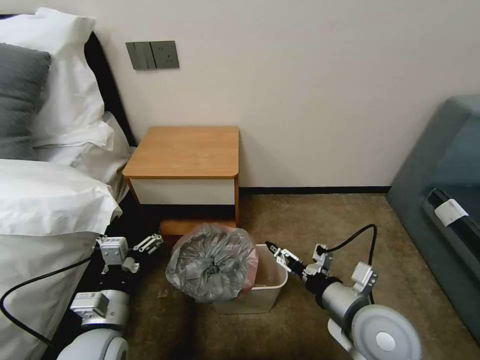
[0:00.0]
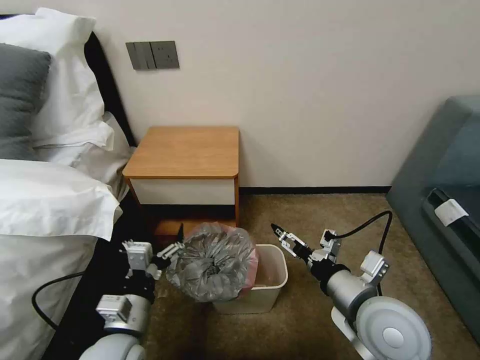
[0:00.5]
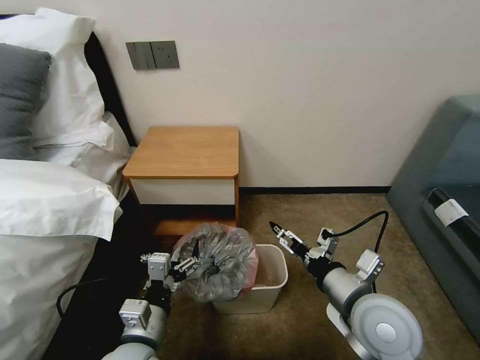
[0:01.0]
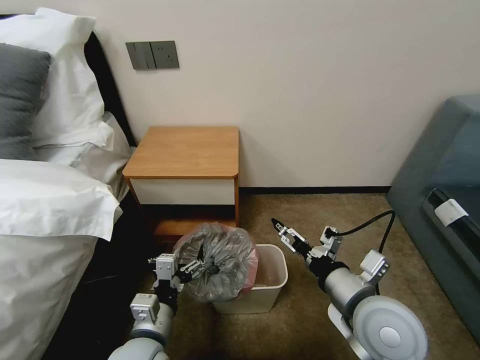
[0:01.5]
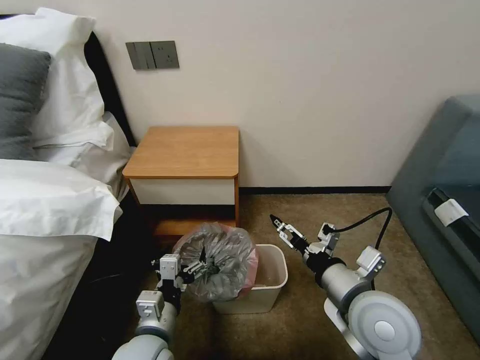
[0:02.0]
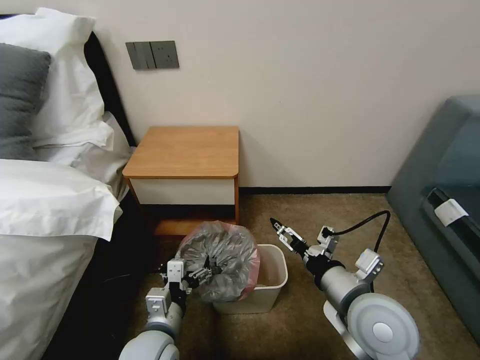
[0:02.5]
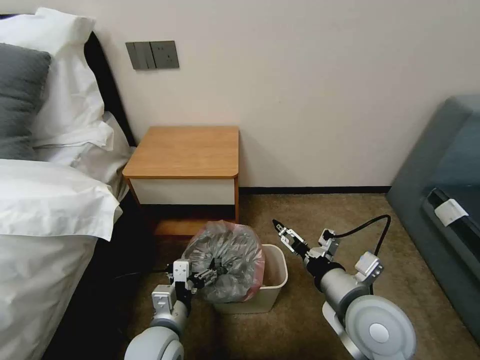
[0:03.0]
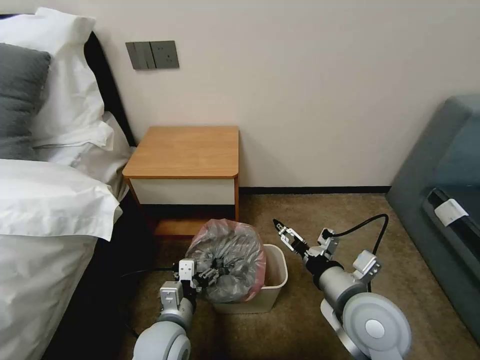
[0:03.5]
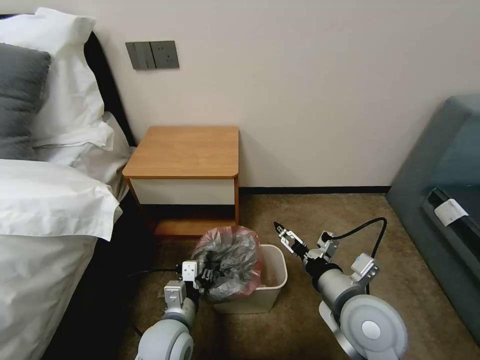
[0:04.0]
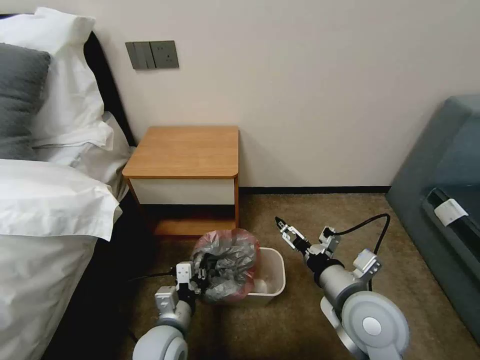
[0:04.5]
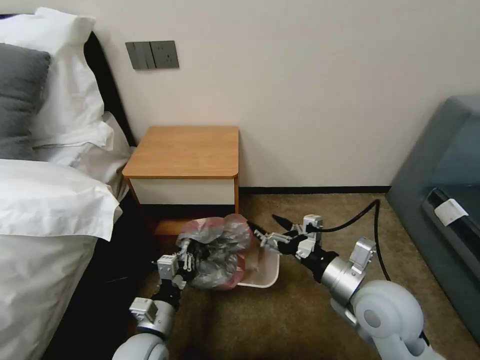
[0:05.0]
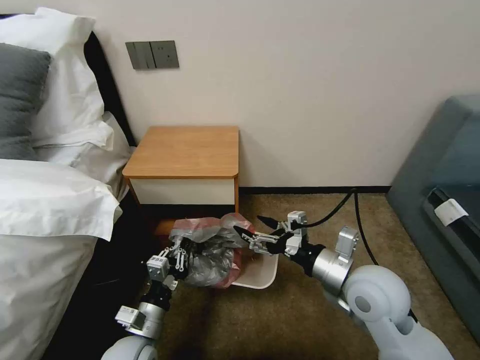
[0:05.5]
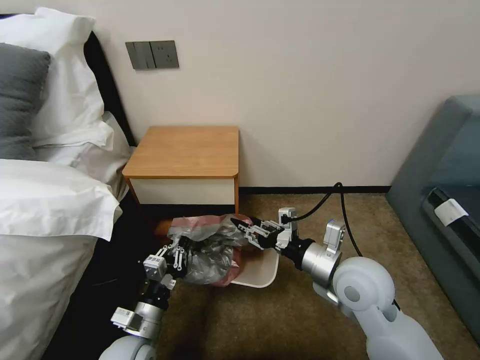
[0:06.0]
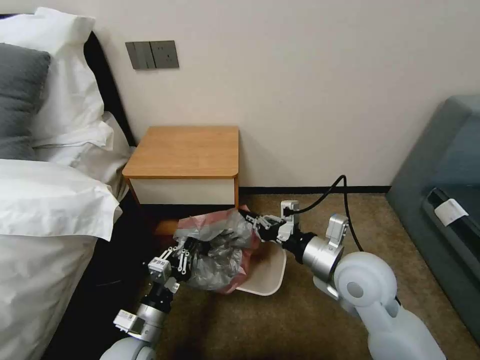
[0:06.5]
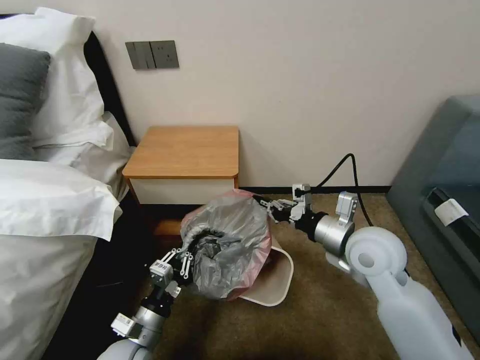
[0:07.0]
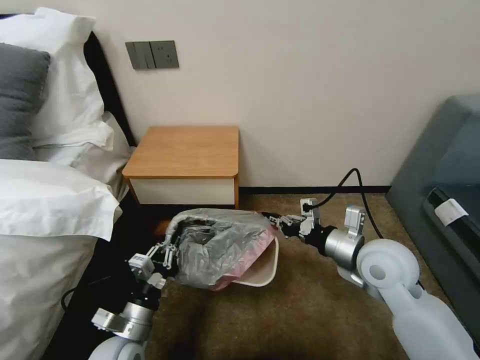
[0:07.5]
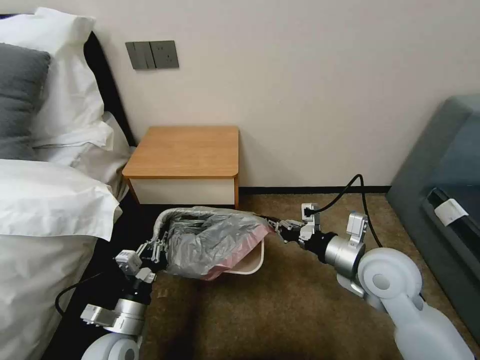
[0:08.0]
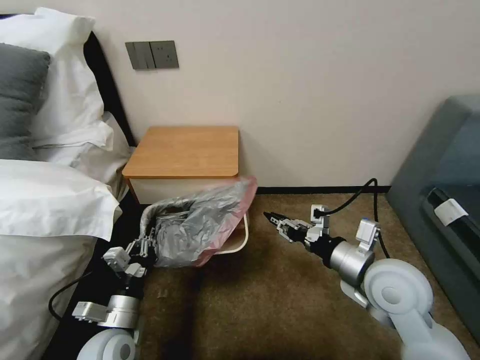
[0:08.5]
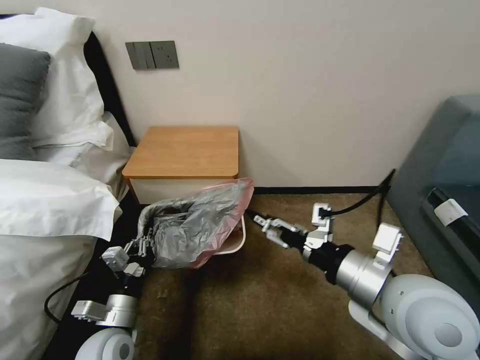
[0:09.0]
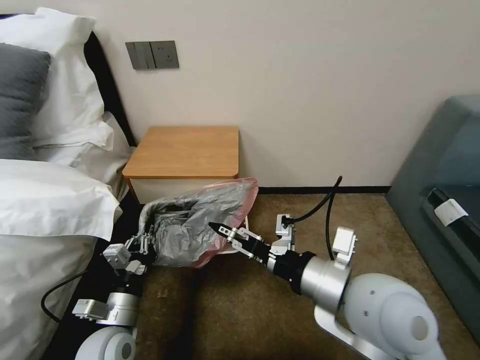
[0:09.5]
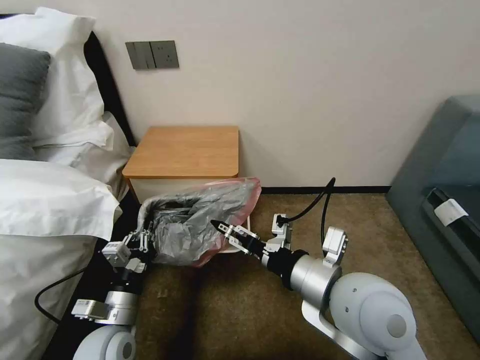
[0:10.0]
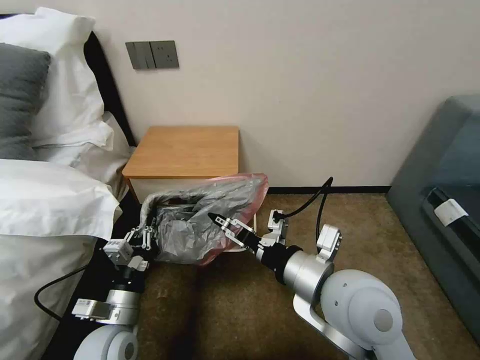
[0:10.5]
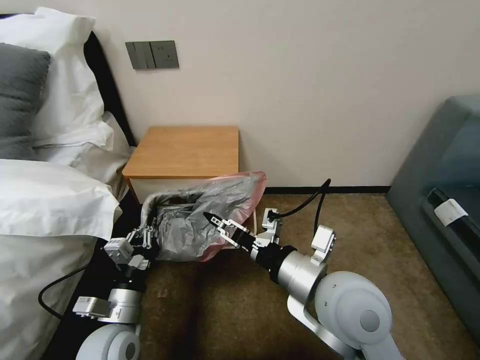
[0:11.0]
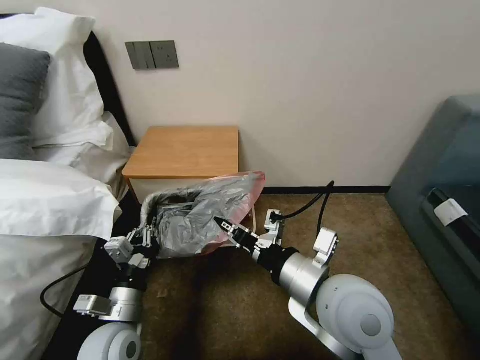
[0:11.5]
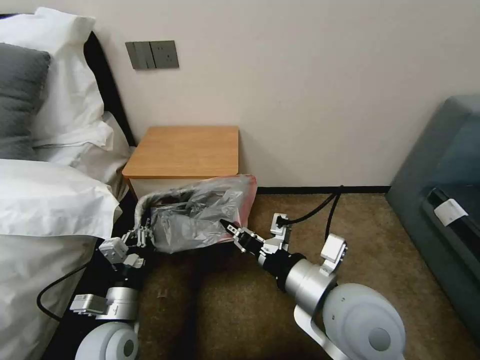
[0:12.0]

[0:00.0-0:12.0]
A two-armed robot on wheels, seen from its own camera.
Task of the whole recording: Pick up the garbage bag from the table and place it over the trash can.
0:00.0 to 0:02.0: The left gripper travels to the right by some 10 cm.
0:02.0 to 0:04.0: The left gripper shifts by roughly 5 cm, and closes its fingers.
0:04.0 to 0:06.0: The left gripper heads to the left, covering roughly 5 cm, while the right gripper moves forward, about 5 cm, and closes.
0:06.0 to 0:08.0: The right gripper moves roughly 5 cm, and closes its fingers.
0:08.0 to 0:10.0: The right gripper is displaced to the left, backward and upward by some 15 cm, and opens its fingers.
0:10.0 to 0:12.0: The right gripper closes its fingers.

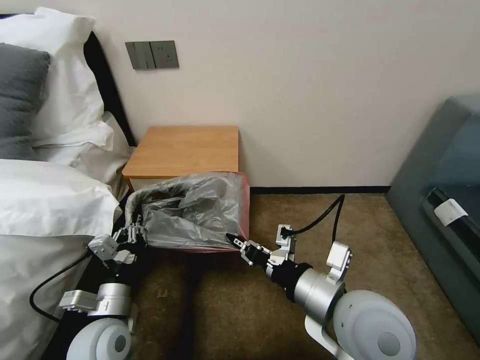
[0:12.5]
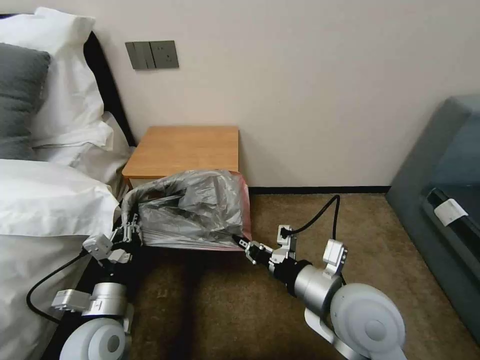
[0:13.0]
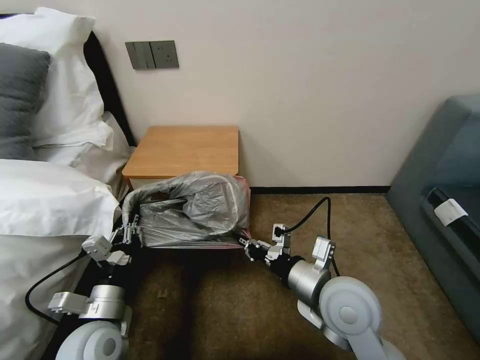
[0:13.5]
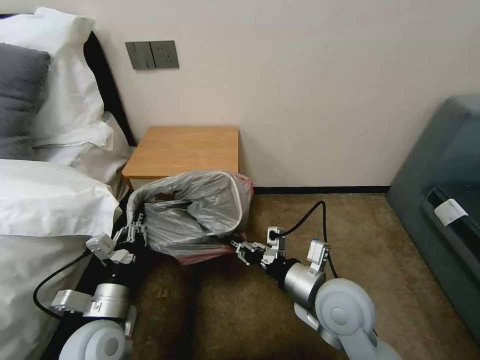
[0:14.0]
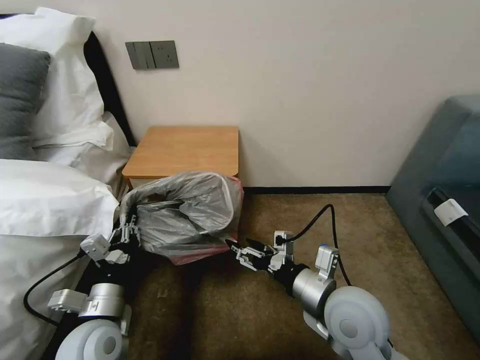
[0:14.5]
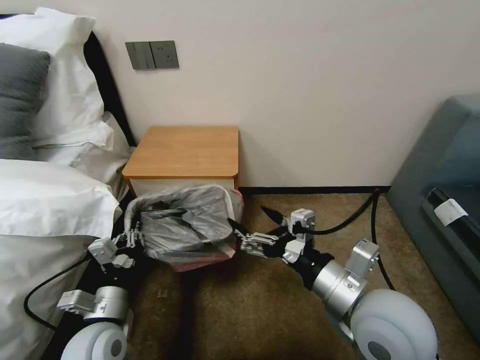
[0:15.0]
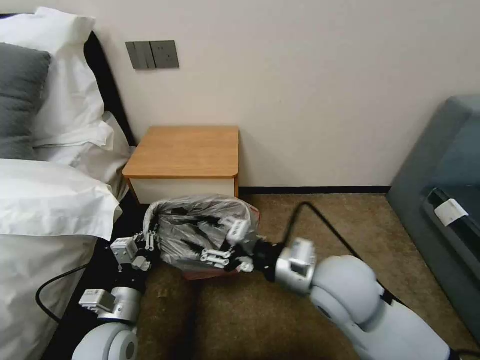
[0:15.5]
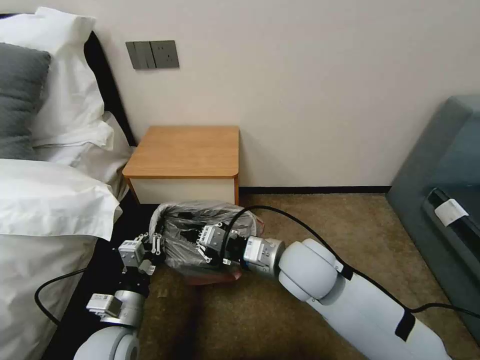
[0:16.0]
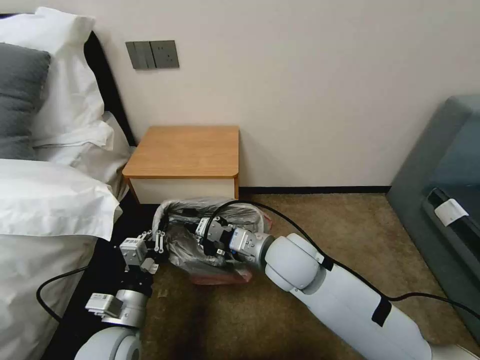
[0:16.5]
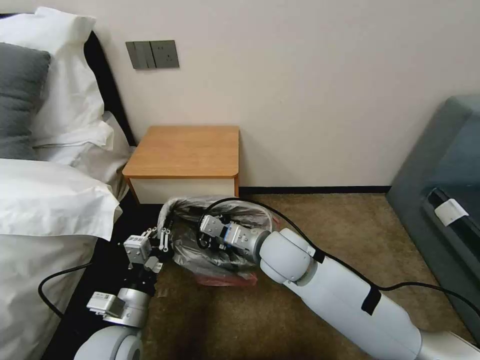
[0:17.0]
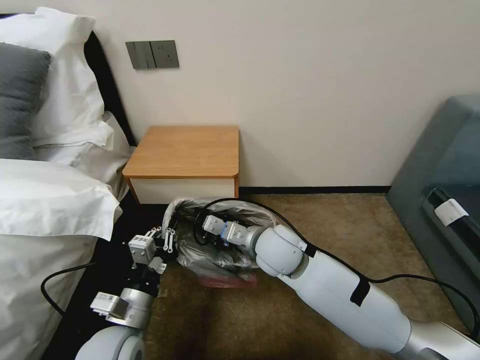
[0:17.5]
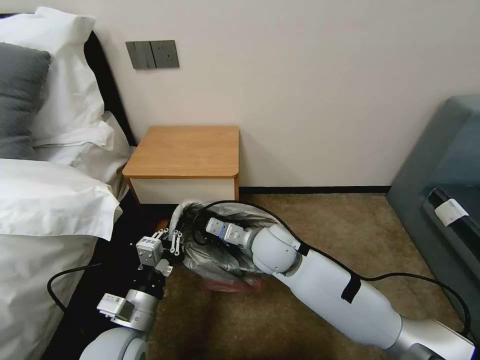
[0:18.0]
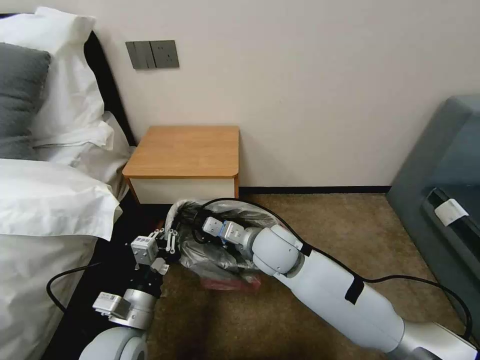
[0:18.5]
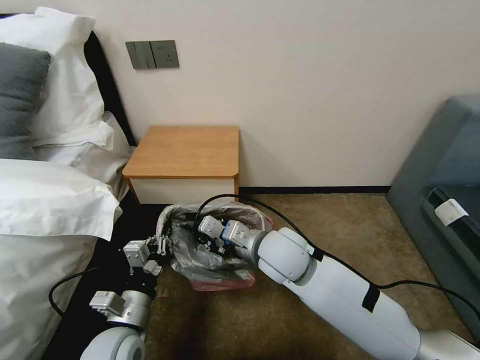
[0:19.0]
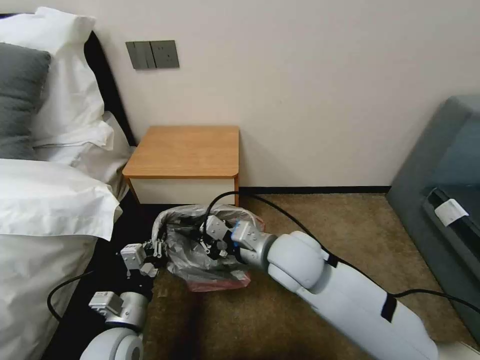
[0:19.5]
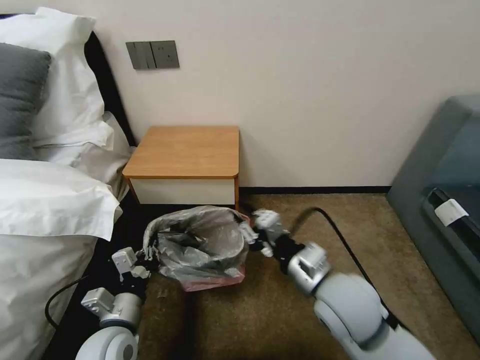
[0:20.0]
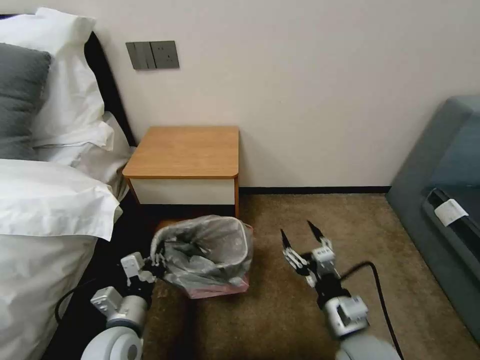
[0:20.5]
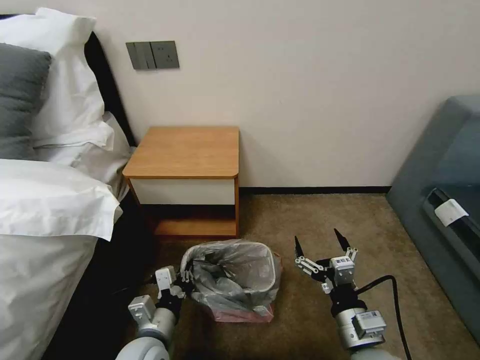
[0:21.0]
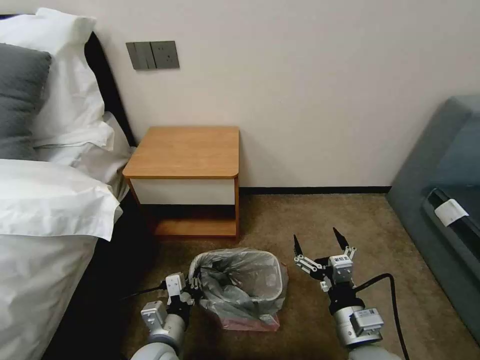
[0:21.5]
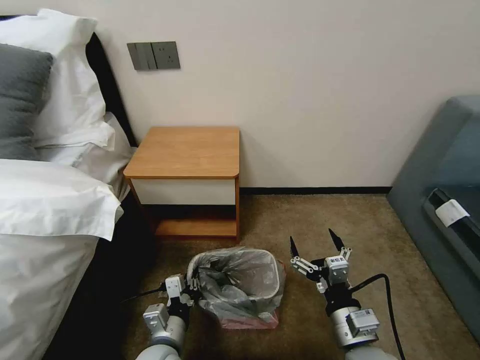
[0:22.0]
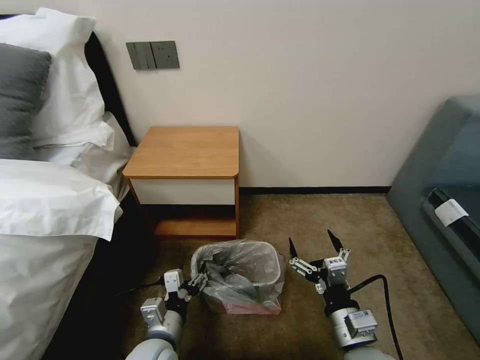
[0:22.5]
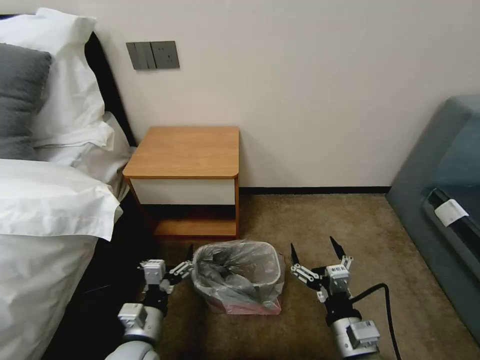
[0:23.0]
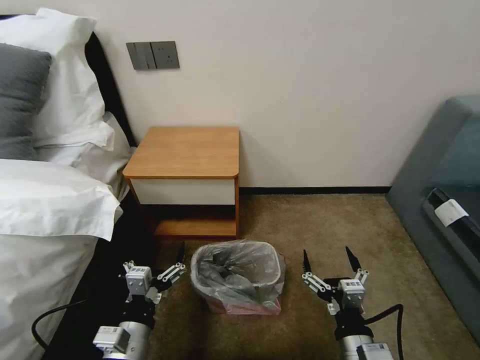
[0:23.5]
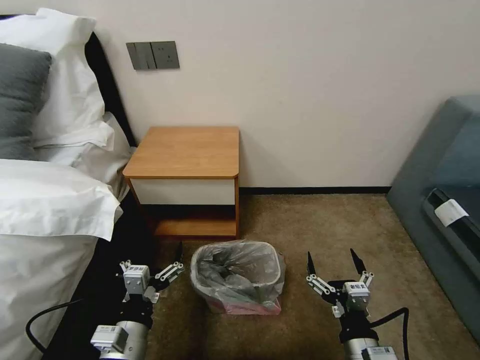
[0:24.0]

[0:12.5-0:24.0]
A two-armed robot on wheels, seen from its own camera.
Task of the whole recording: Pick up the garbage bag from the table and place it over the trash can.
0:12.5 to 0:14.5: The right gripper heads downward, covering roughly 5 cm, and opens.
0:14.5 to 0:16.5: The right gripper heads to the left and forward, covering approximately 15 cm, and closes its fingers.
0:16.5 to 0:18.5: The right gripper moves some 5 cm.
0:18.5 to 0:20.0: The right gripper moves backward and to the right, about 15 cm.
0:20.0 to 0:22.0: The right gripper goes about 15 cm downward, backward and to the right, and opens its fingers. The left gripper moves to the right and downward, about 10 cm.
0:22.0 to 0:24.0: The right gripper moves roughly 5 cm. The left gripper is displaced upward by some 5 cm, and opens its fingers.

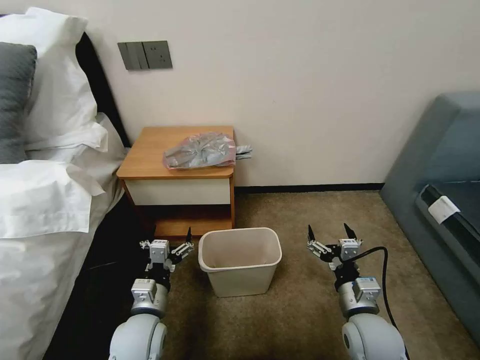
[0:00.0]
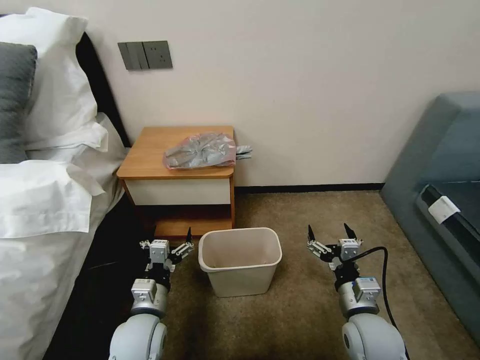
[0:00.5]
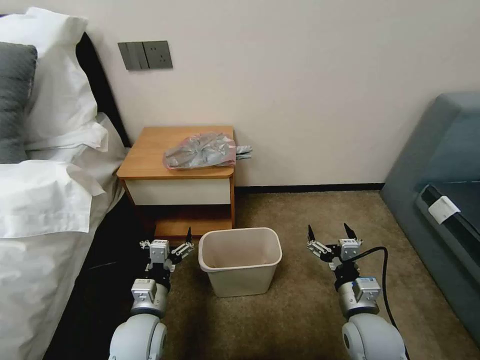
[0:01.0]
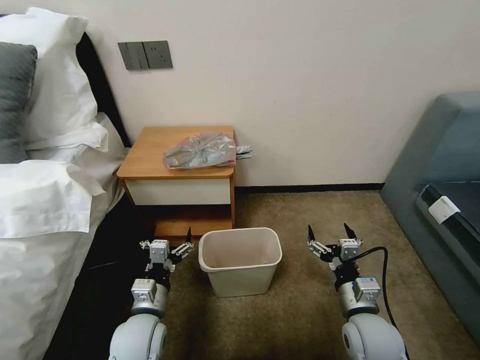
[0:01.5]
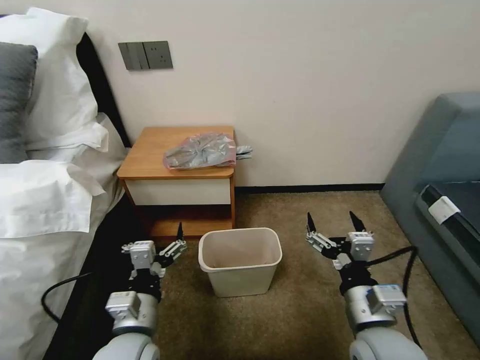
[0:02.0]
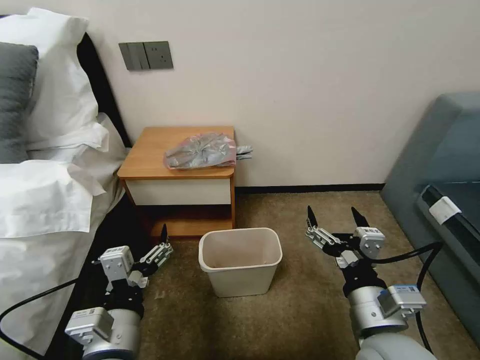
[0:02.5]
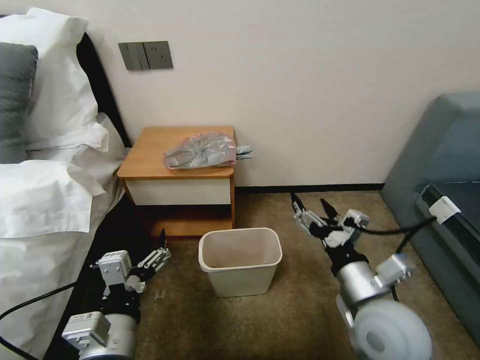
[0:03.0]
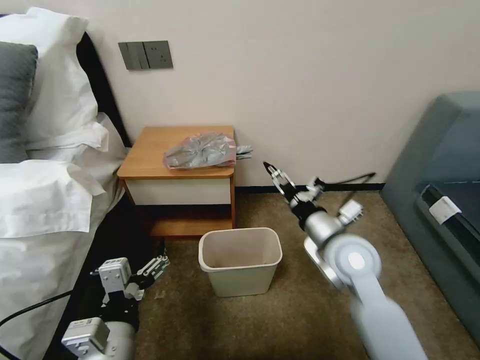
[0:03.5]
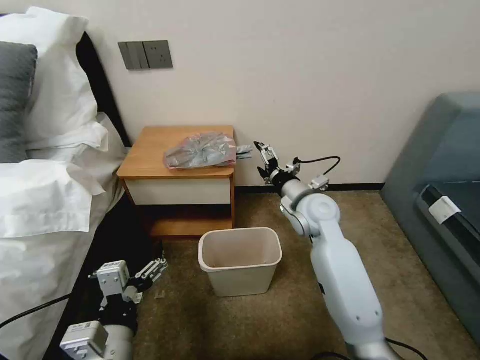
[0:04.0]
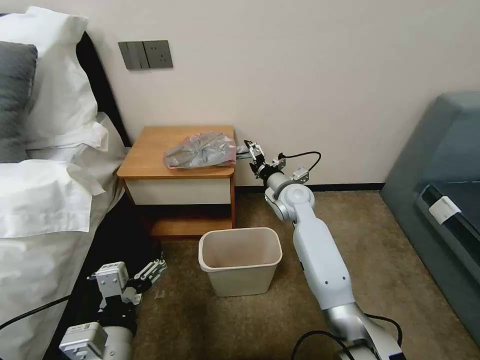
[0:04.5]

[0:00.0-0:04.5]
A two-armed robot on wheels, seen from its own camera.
Task of the whole recording: Pick up the garbage bag from the table and place it over the trash can.
0:02.0 to 0:04.5: The right gripper moves forward, some 35 cm; the left gripper travels backward and upward by some 10 cm.
